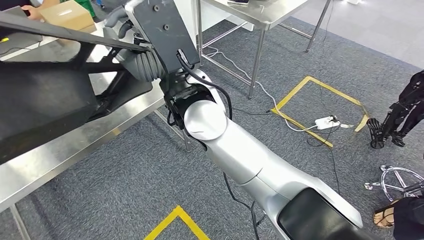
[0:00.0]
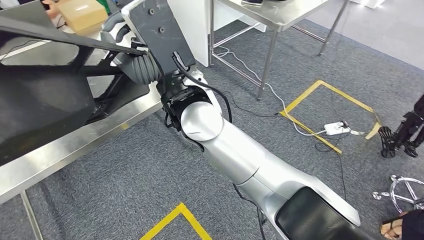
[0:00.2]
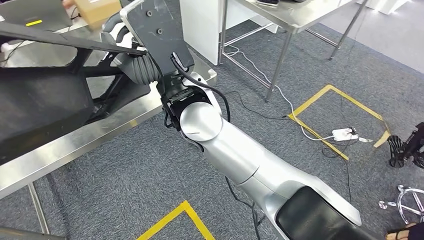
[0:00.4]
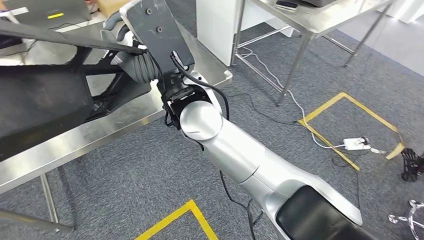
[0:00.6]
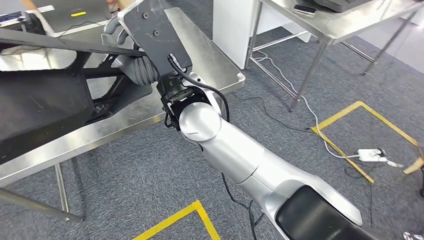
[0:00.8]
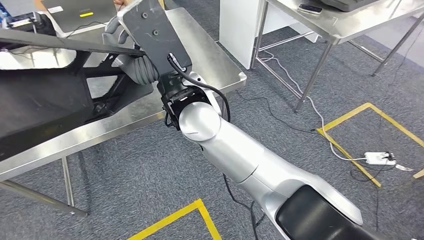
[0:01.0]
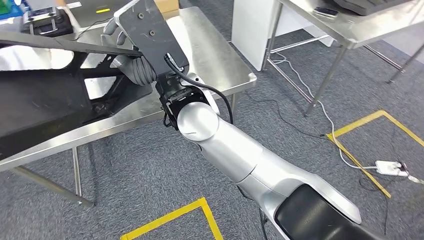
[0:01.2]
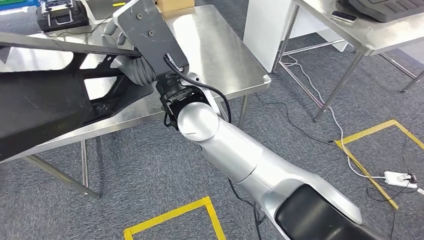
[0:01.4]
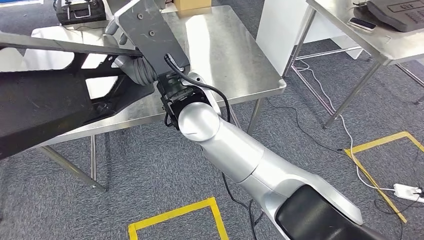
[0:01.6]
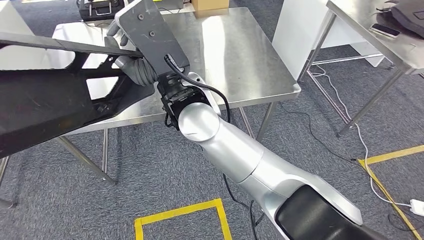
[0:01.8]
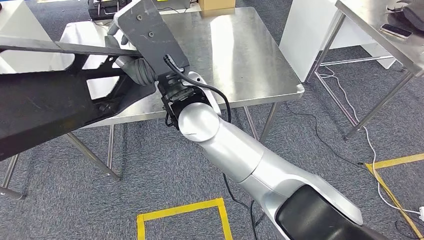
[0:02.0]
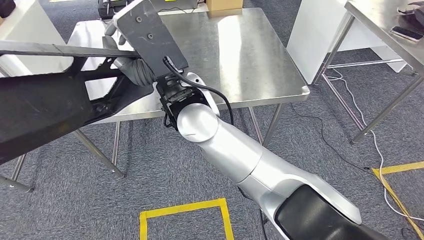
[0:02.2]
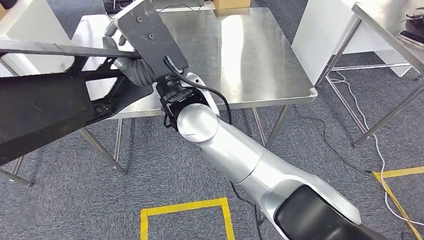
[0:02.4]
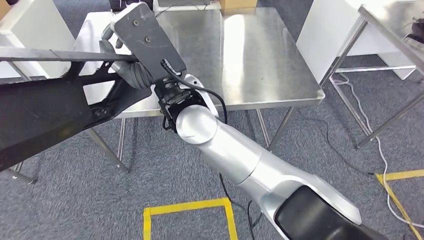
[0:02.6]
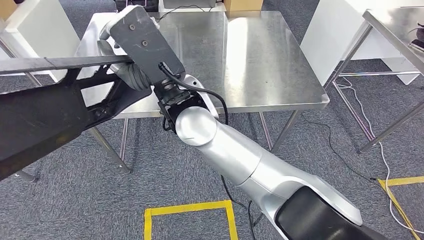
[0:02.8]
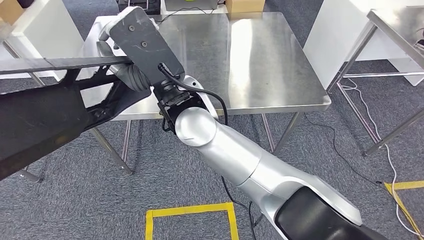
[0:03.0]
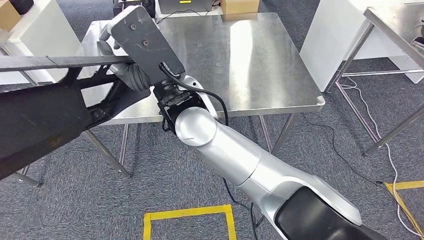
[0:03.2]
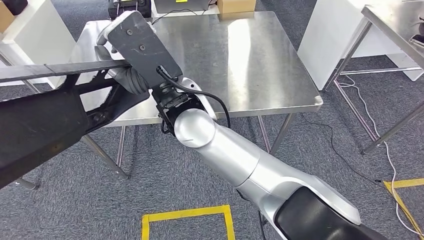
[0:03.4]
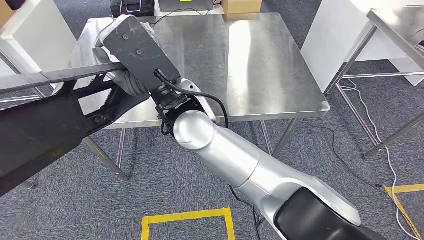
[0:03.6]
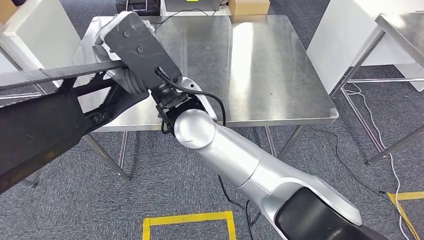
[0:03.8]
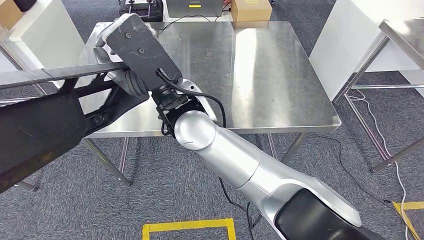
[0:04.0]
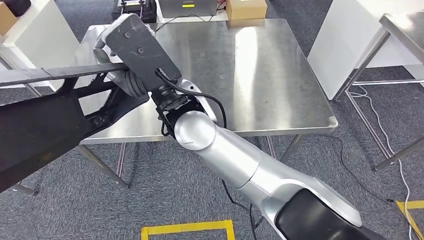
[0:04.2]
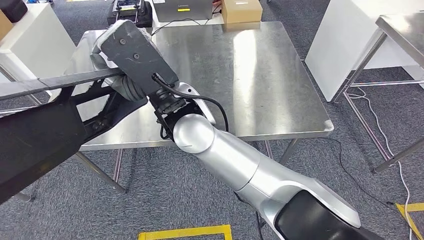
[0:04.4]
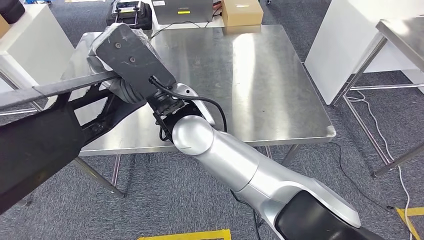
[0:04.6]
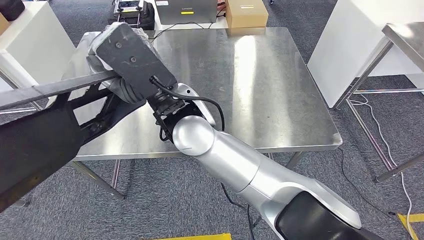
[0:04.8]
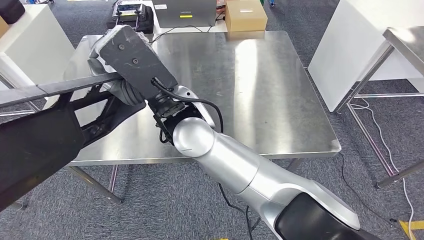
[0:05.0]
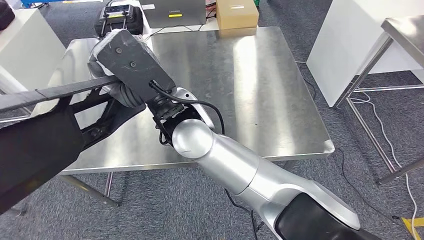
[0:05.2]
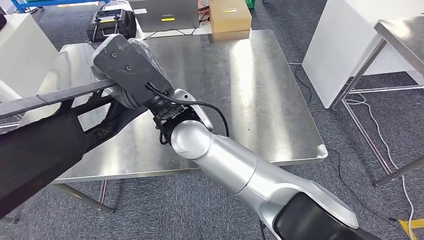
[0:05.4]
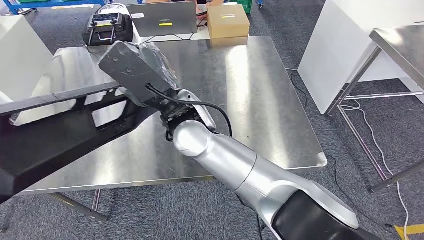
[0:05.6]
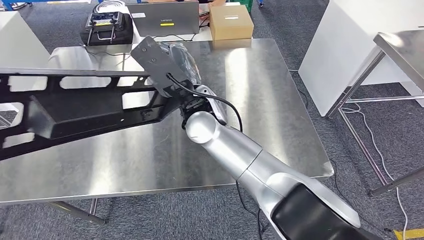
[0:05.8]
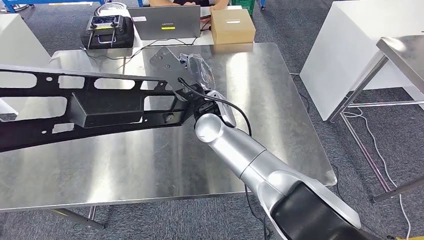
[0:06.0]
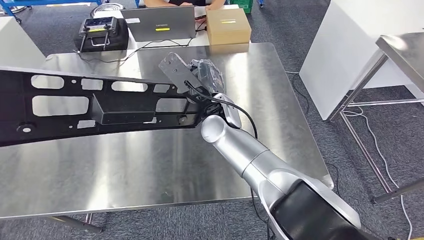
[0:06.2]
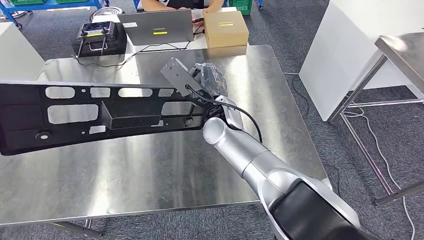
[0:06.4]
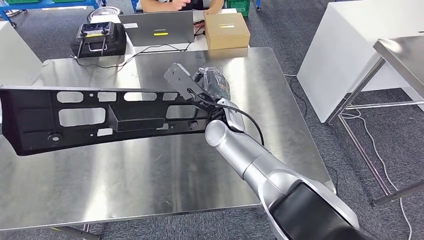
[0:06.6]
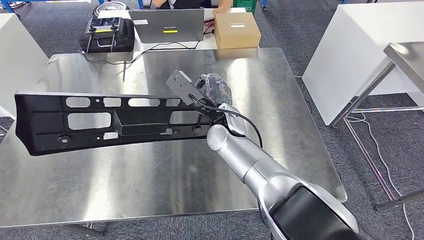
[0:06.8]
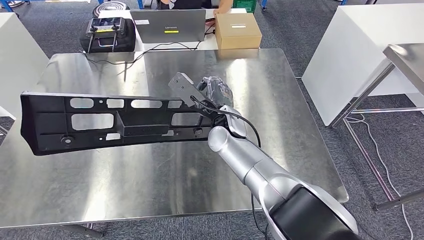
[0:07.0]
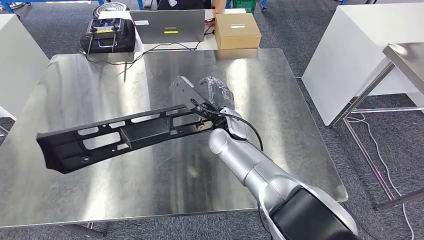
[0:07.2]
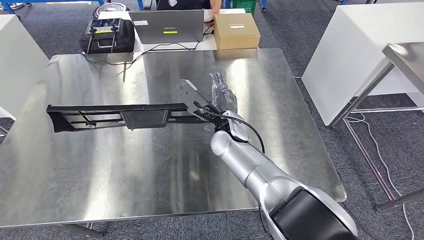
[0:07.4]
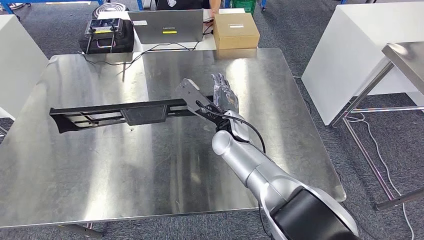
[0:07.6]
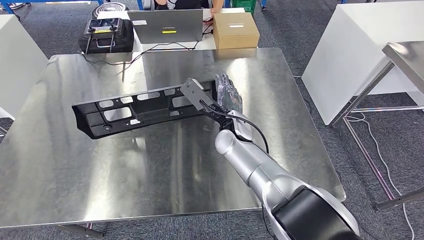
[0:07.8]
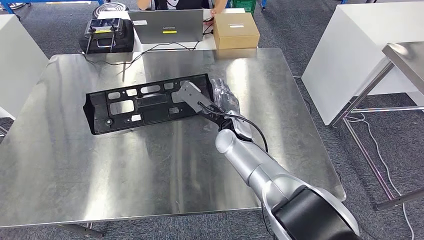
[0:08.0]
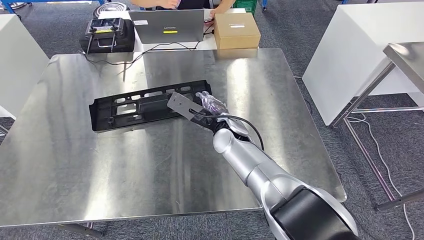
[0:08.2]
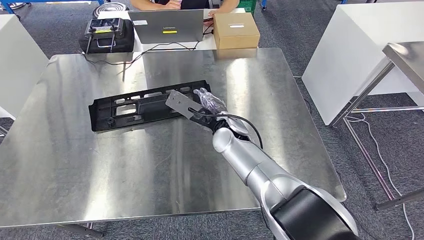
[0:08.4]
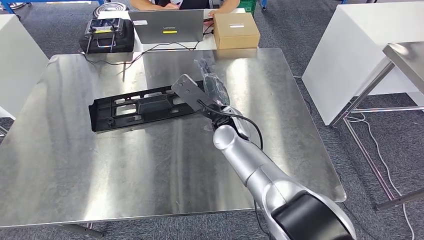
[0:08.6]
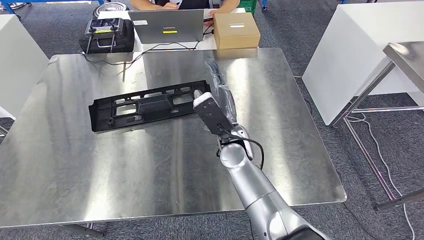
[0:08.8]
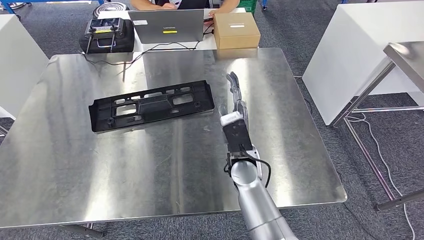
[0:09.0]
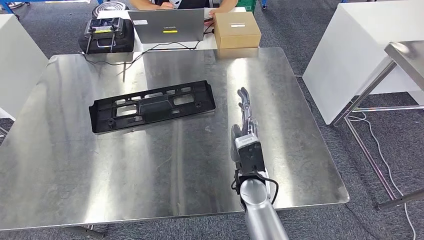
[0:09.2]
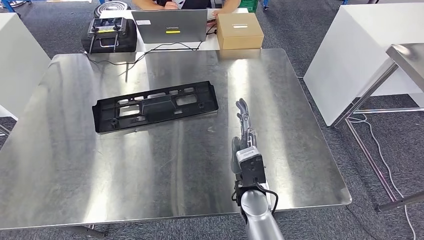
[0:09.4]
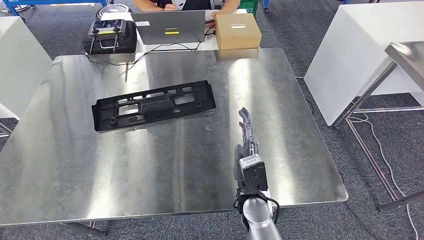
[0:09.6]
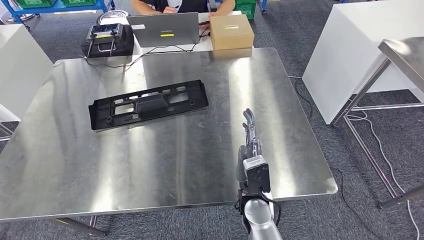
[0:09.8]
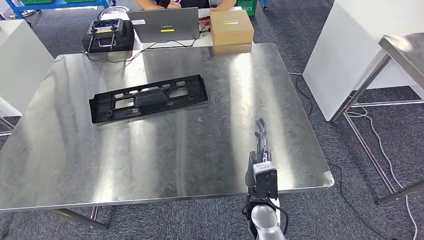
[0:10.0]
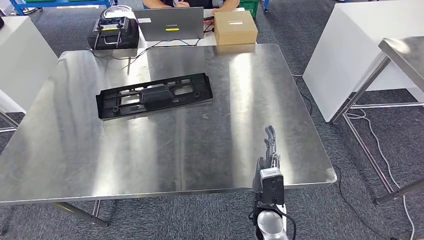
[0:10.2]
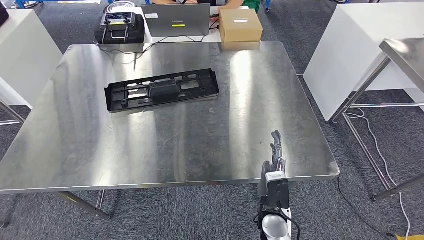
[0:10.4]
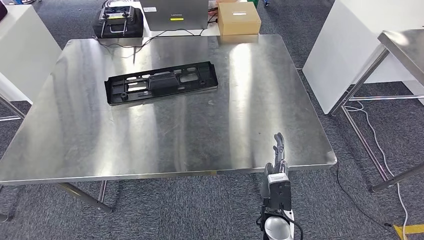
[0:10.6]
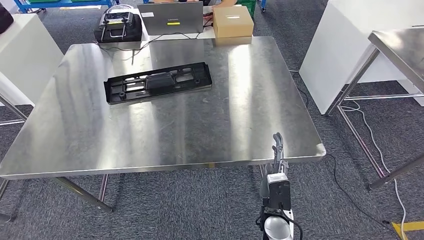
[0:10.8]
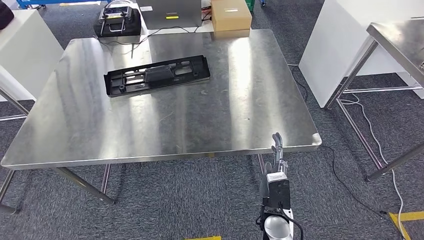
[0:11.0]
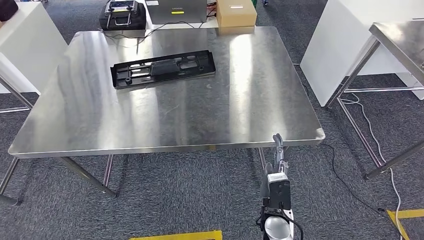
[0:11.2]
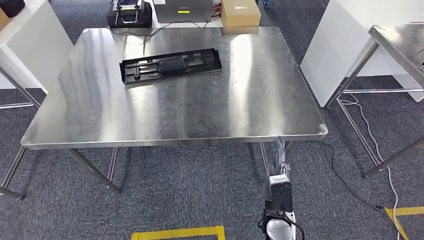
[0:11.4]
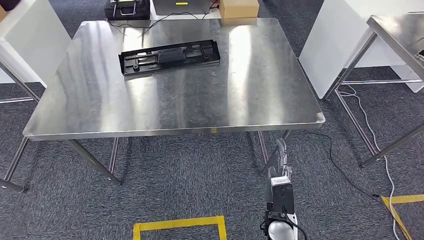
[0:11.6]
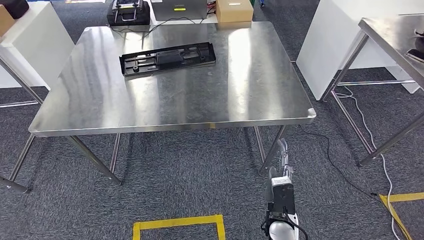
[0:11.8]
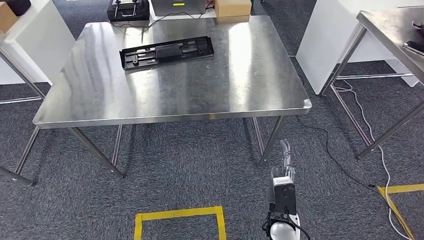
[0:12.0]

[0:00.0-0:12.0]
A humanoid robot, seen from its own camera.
0:07.6 to 0:09.0: The right hand goes some 10 cm backward.

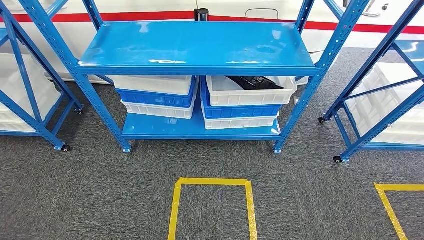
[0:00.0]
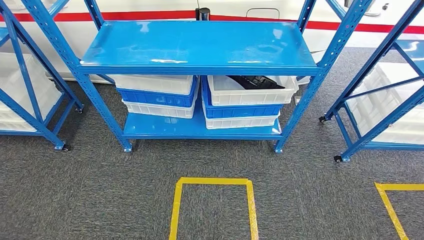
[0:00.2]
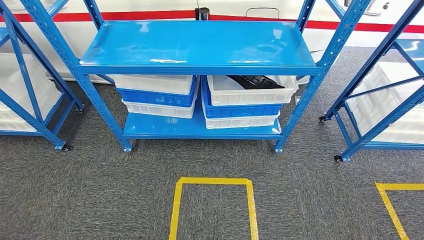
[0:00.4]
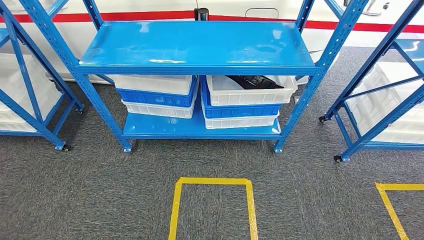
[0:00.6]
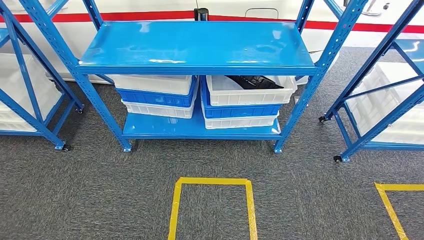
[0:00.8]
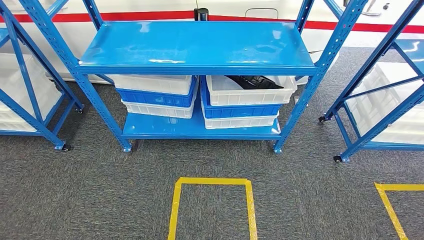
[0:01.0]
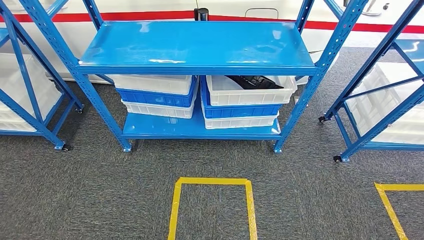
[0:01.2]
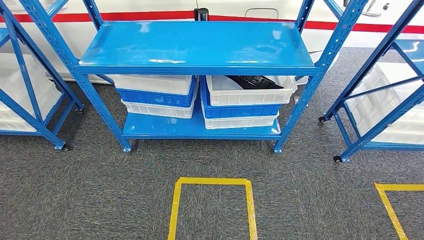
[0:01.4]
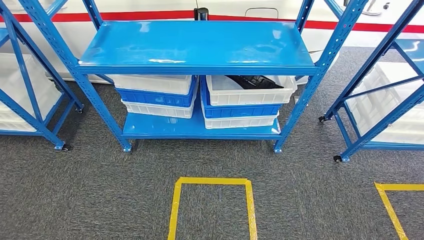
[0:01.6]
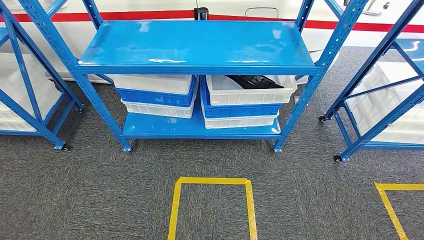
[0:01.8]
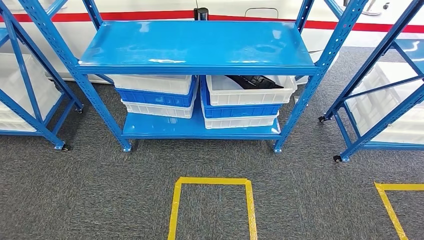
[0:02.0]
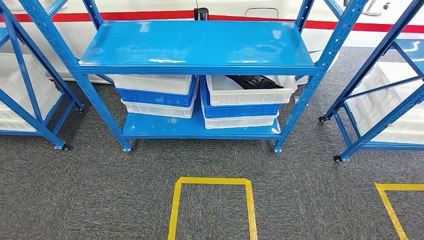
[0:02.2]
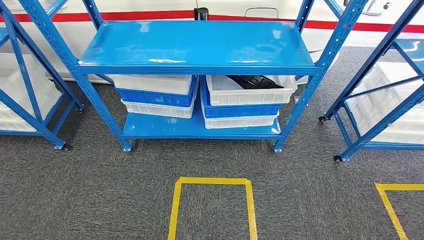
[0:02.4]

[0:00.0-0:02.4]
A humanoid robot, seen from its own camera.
Step, 0:00.0 to 0:02.4: Return to the initial position at the shelf.
0:00.0 to 0:01.2: The hands move only a little.

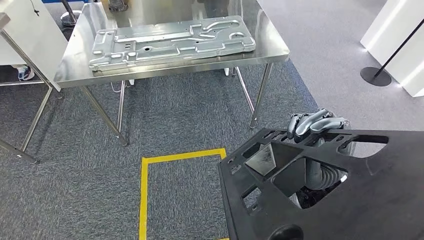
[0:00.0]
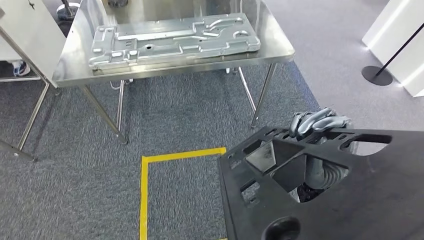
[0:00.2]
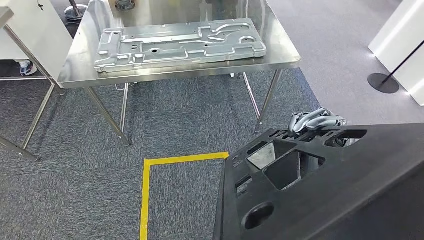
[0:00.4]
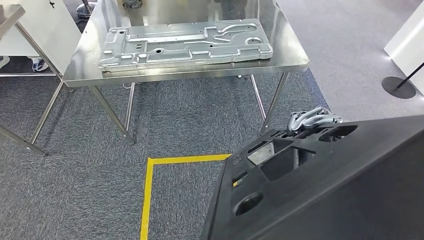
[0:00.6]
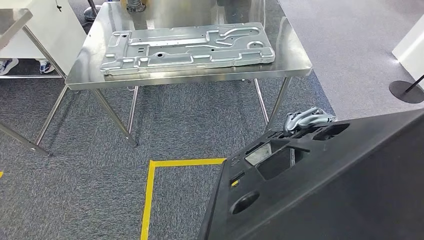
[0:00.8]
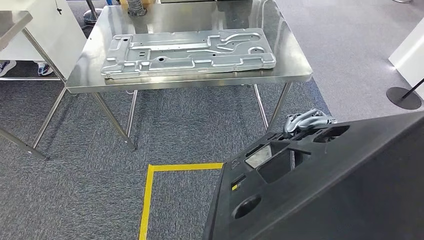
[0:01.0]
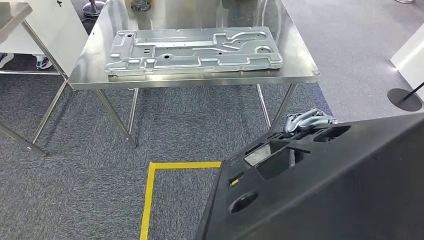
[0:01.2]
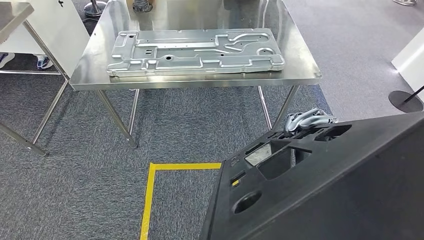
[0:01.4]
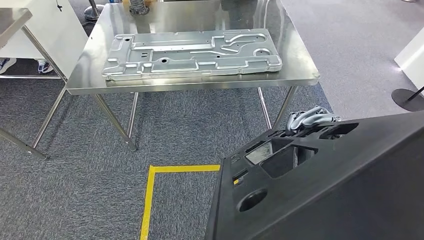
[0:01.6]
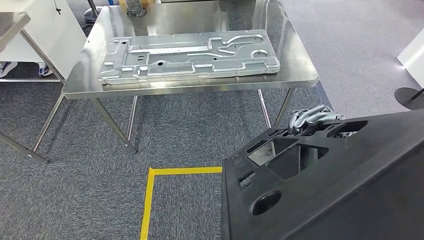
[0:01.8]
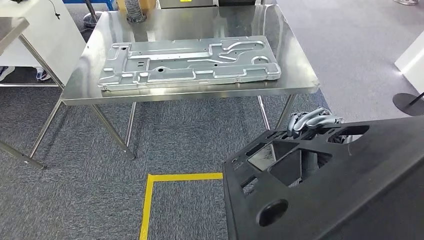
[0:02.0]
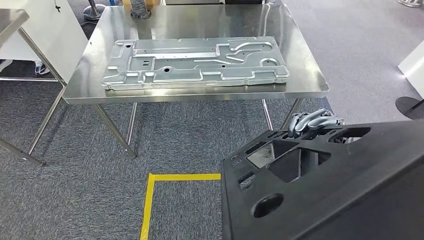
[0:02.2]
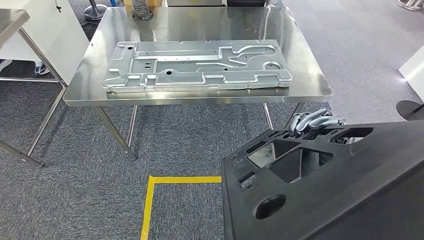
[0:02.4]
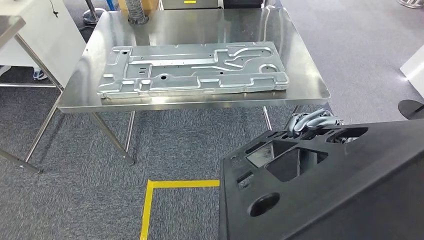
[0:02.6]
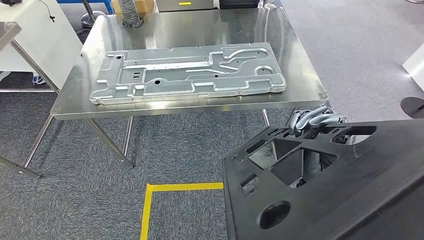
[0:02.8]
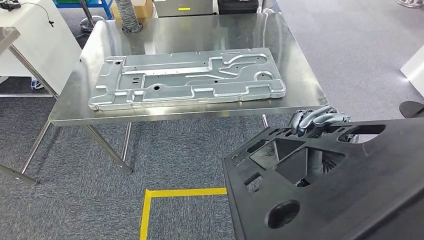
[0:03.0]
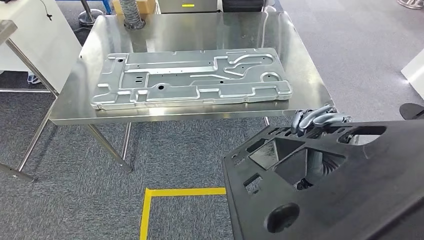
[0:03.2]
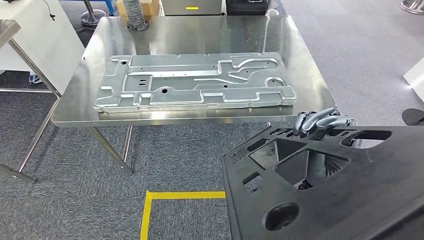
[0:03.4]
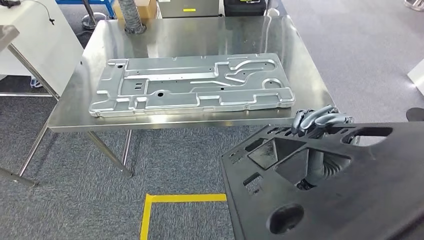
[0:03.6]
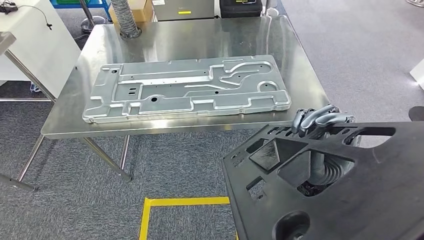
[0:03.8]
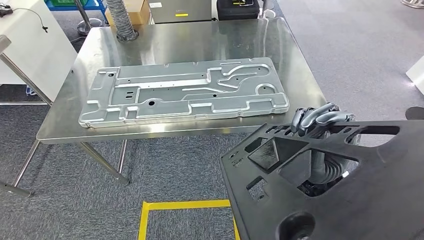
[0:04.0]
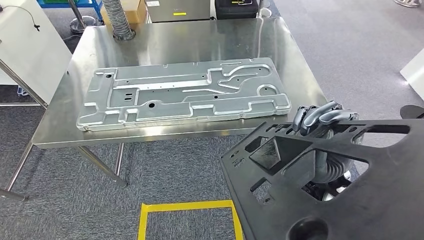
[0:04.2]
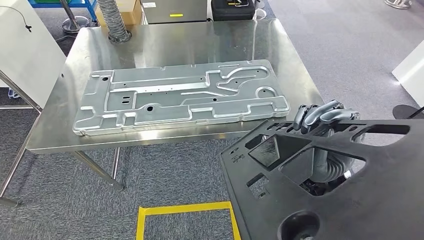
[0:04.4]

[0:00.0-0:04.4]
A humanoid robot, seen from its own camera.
Step, 0:00.0 to 0:02.6: Move the large material to the workbench.
